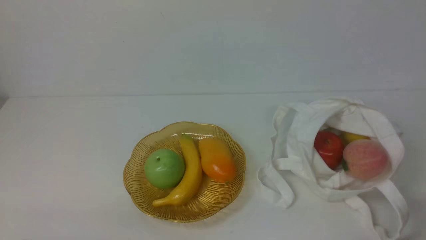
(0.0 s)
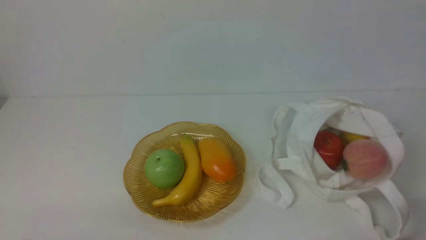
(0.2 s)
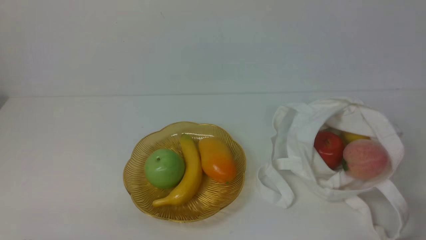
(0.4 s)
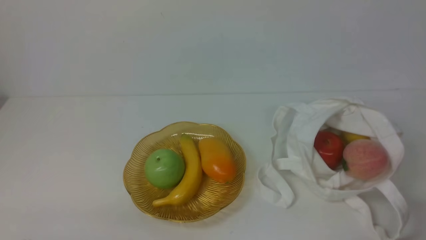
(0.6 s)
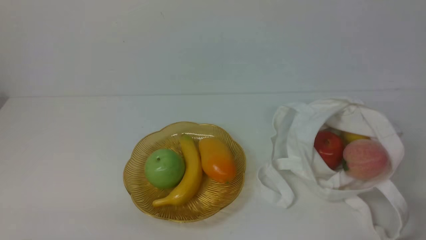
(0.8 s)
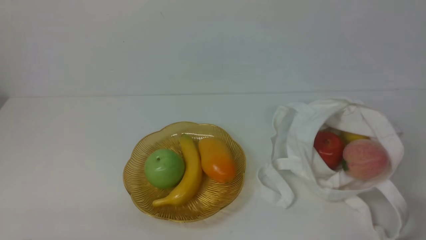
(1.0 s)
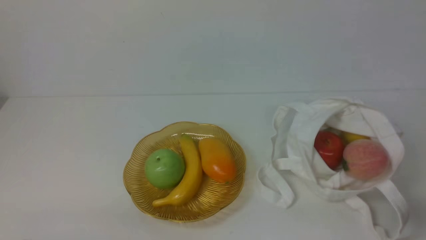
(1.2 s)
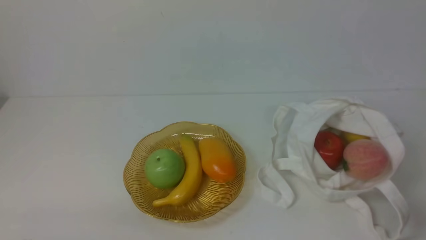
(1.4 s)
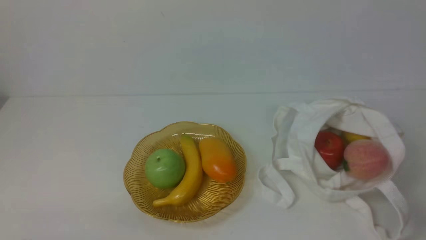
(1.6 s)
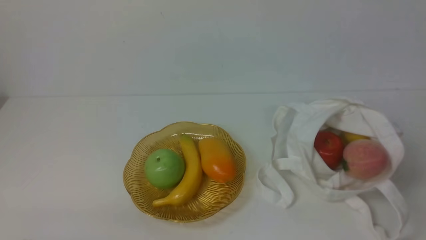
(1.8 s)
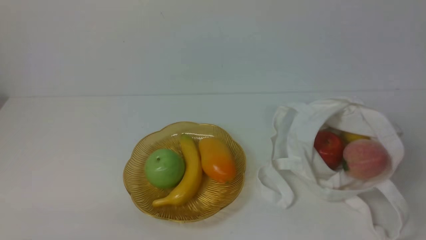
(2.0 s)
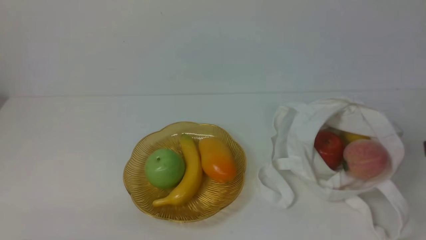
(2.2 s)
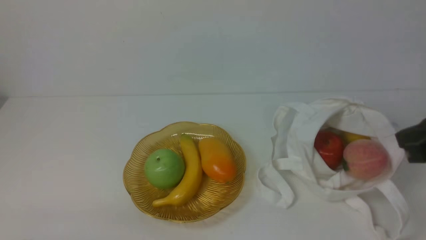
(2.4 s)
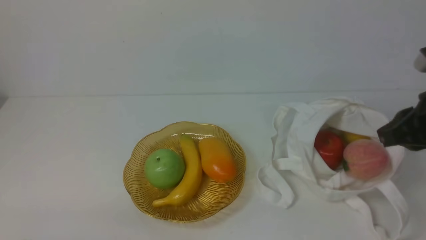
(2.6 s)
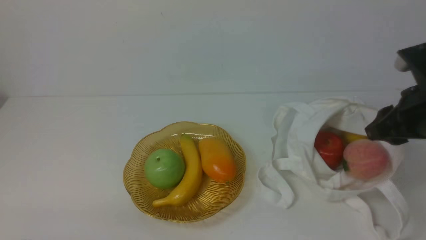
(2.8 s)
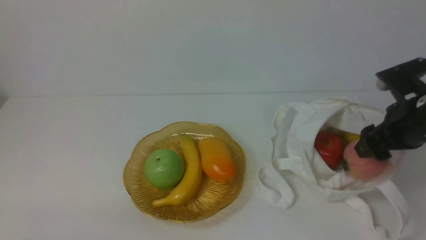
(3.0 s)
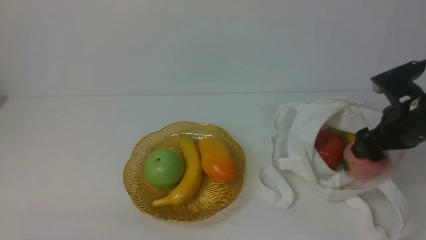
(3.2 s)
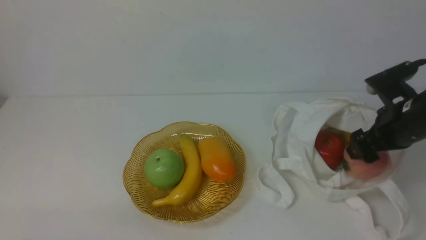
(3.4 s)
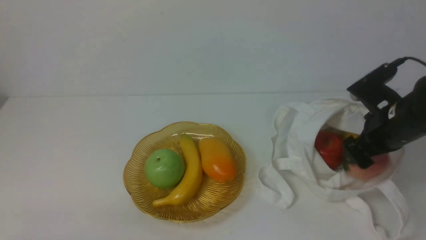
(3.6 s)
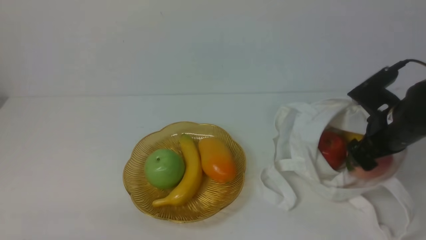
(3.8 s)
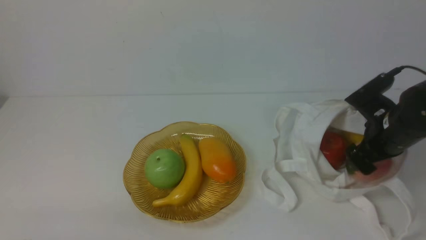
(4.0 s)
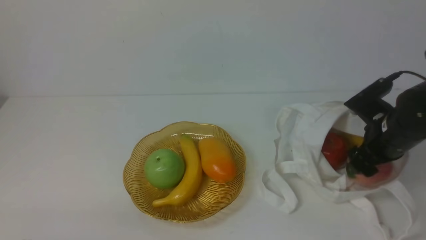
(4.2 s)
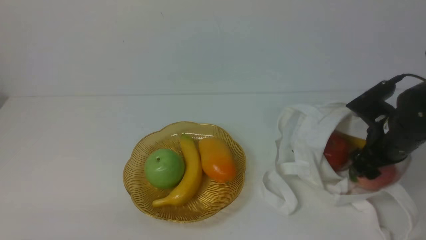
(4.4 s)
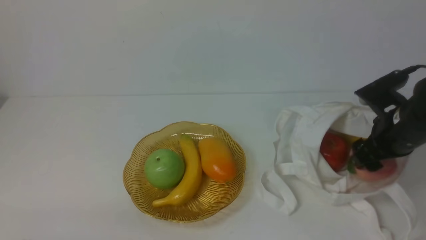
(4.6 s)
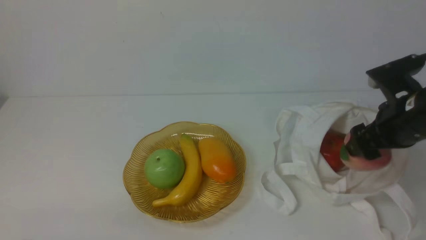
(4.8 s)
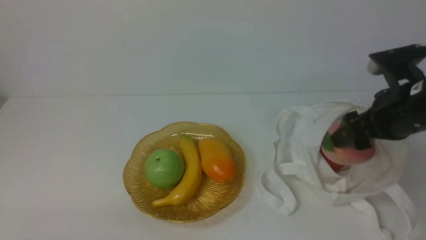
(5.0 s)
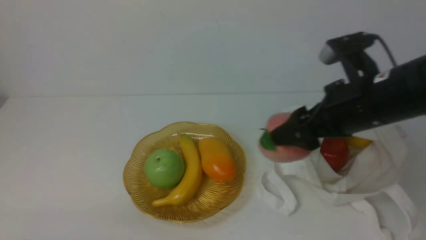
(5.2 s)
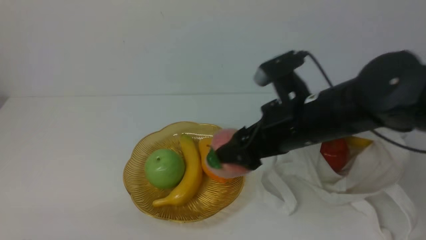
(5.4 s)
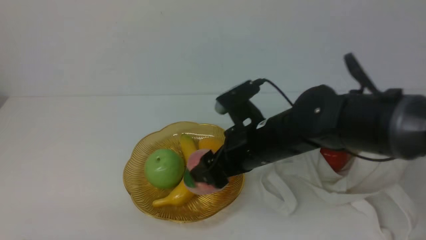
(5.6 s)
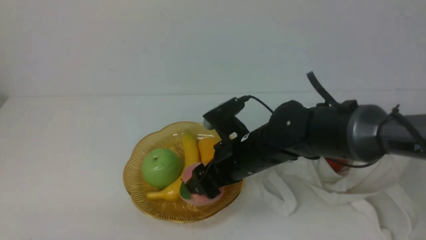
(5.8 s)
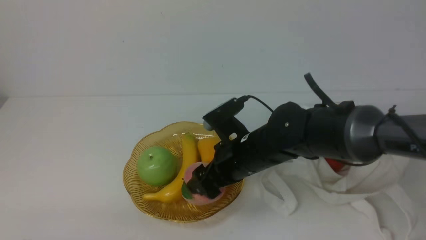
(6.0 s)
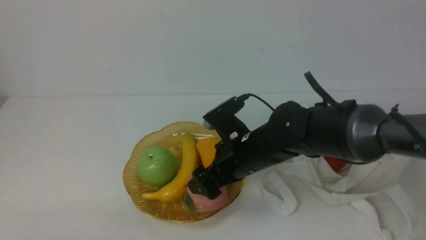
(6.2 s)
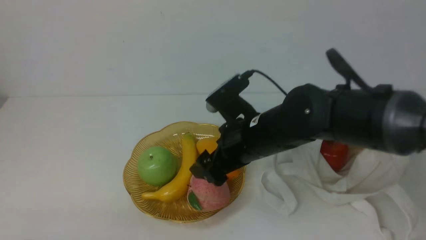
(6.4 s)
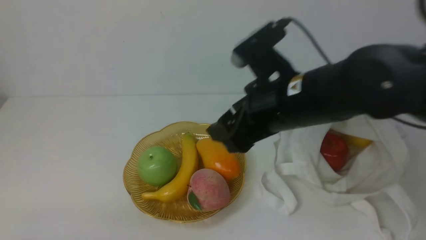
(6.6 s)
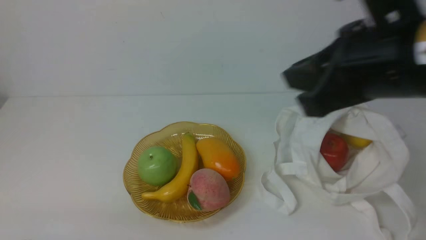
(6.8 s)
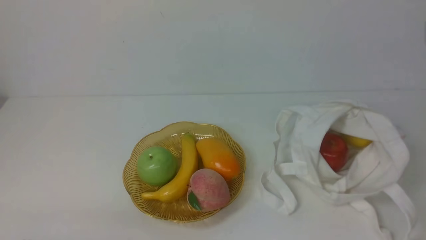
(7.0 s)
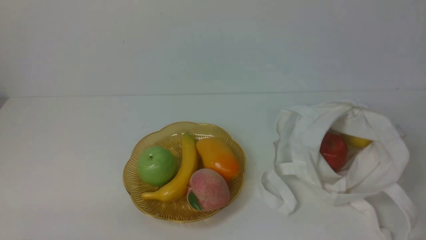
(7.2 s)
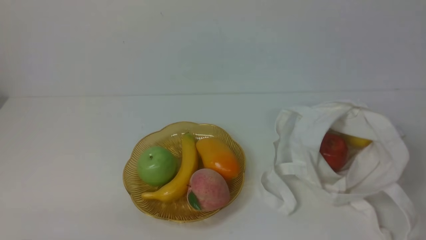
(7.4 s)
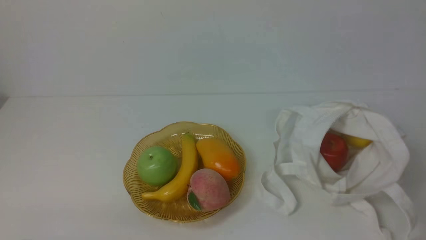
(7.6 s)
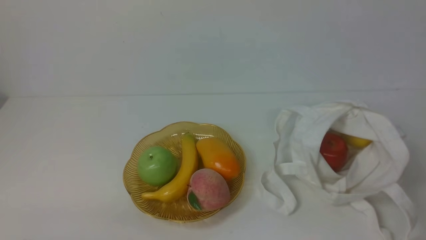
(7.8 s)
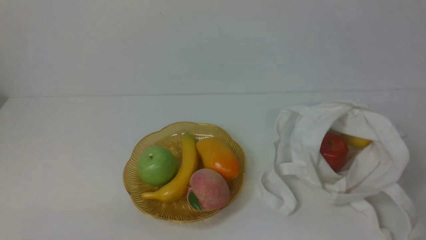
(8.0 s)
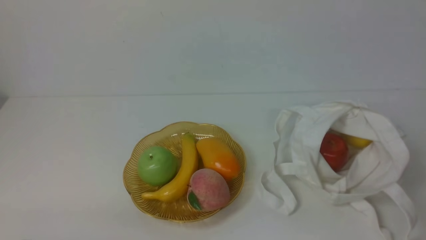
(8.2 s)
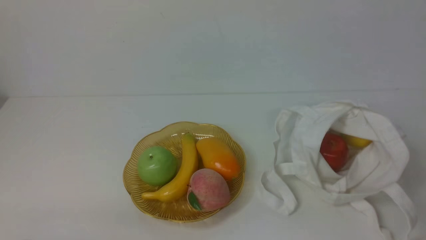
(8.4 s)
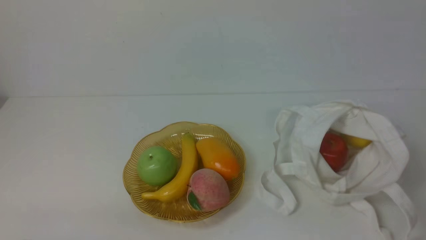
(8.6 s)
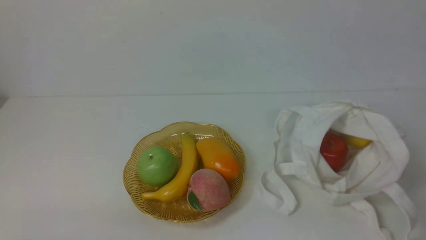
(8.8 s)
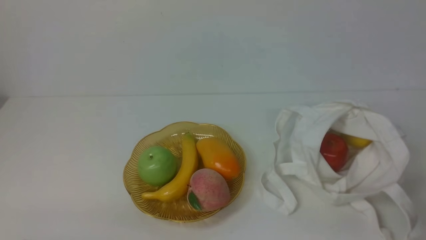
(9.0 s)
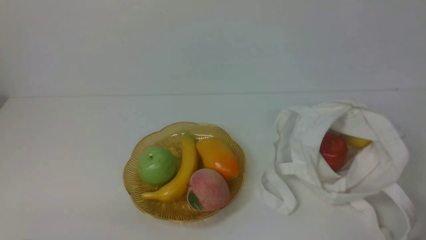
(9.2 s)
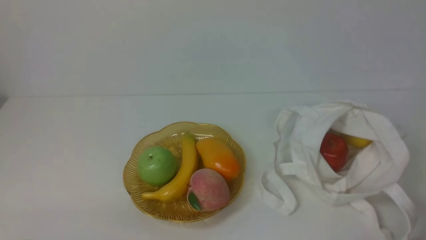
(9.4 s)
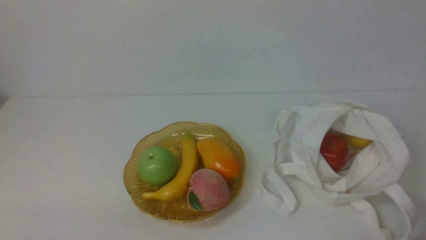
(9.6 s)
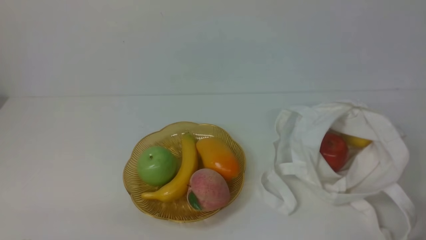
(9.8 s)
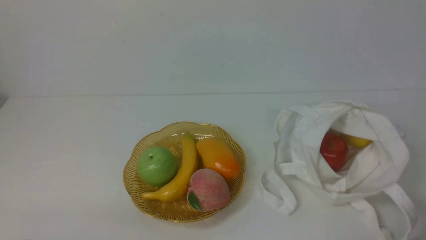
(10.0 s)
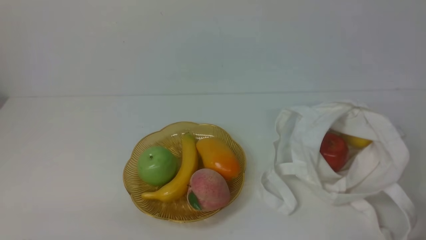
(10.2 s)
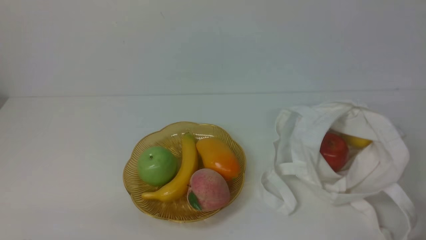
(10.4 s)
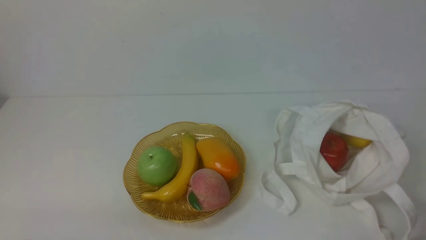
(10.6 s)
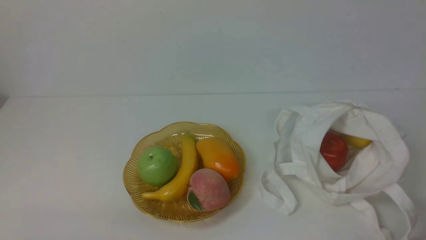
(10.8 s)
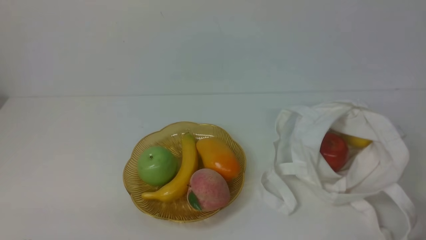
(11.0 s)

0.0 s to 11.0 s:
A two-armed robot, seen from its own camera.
Step, 0.0 to 4.8 s: use the right arm to grab a peach from the bag.
Step, 5.0 to 6.2 s: use the right arm to put the peach into the empty plate on the left.
1.6 to 3.2 s: The right gripper is displaced forward by about 25 cm, and opens its fingers.
3.2 to 4.8 s: The grippers make only small movements.
4.8 to 6.2 s: The right gripper heads to the left, covering roughly 20 cm.
6.2 to 7.8 s: The right gripper goes some 35 cm backward and to the right, and closes up.
9.4 to 11.0 s: Neither gripper changes place.

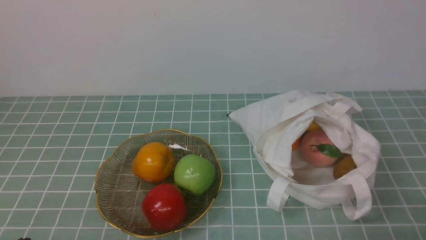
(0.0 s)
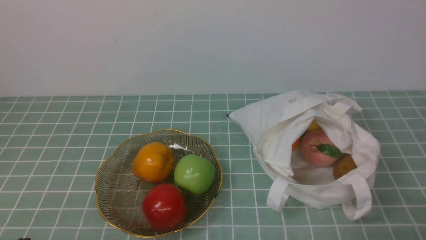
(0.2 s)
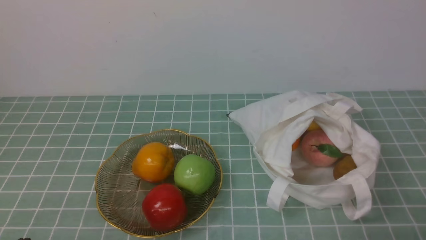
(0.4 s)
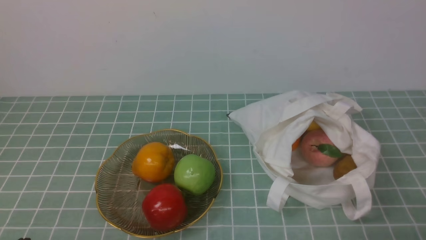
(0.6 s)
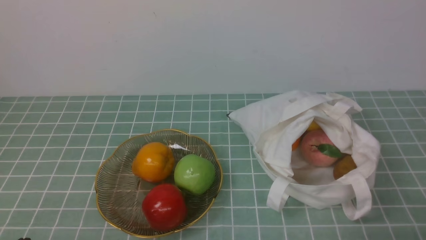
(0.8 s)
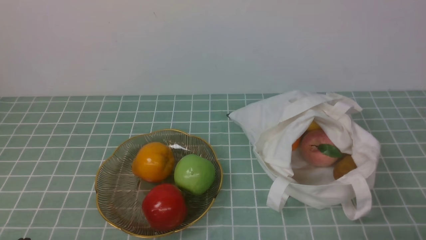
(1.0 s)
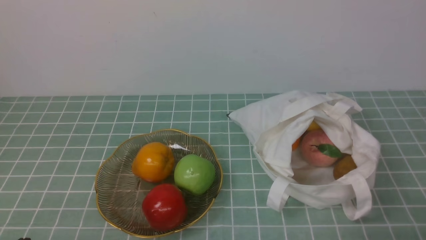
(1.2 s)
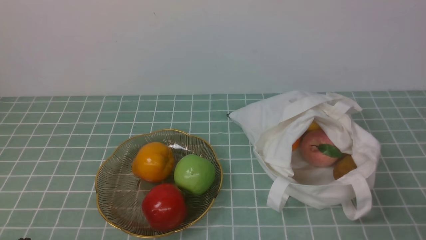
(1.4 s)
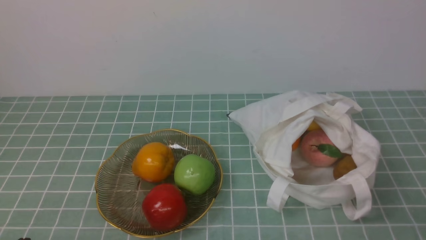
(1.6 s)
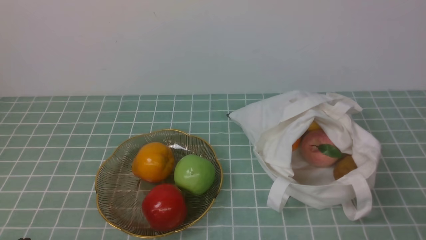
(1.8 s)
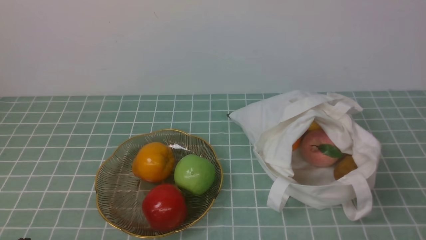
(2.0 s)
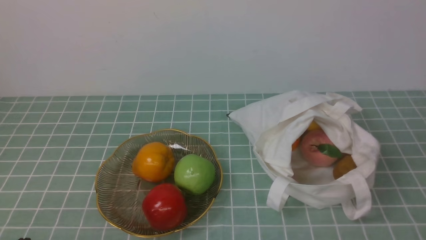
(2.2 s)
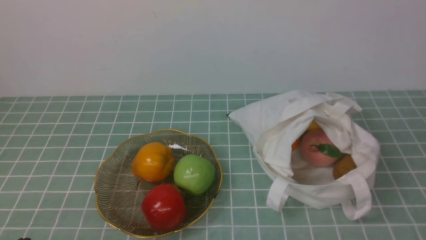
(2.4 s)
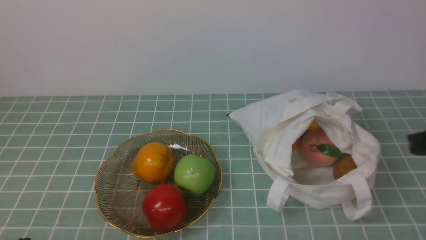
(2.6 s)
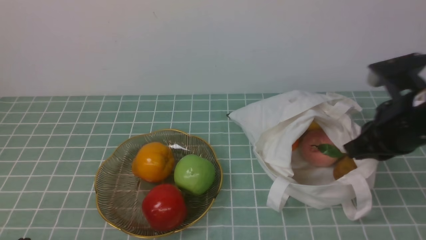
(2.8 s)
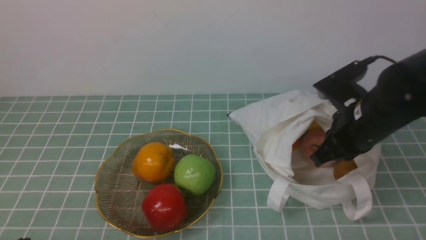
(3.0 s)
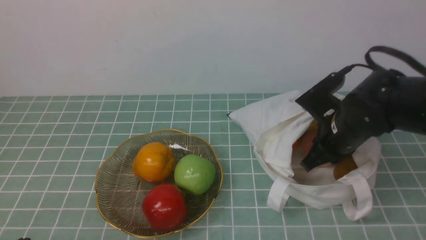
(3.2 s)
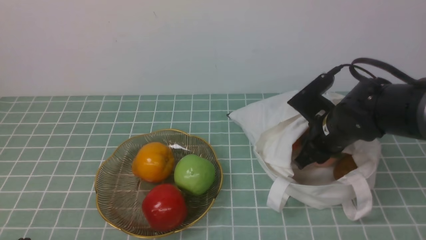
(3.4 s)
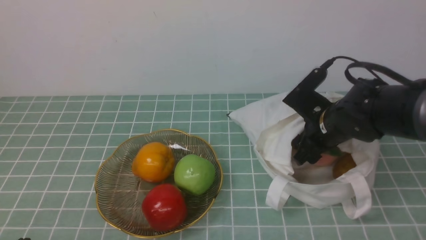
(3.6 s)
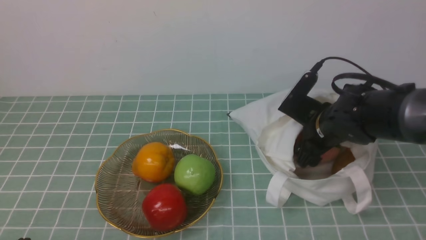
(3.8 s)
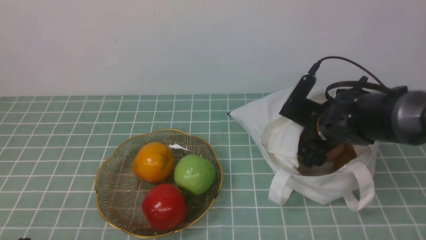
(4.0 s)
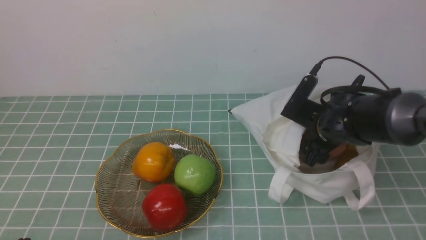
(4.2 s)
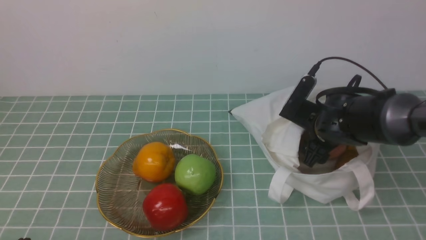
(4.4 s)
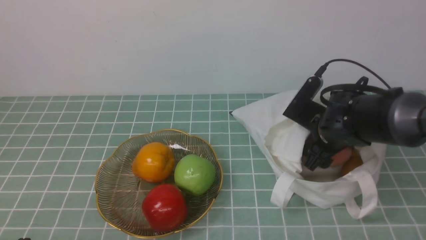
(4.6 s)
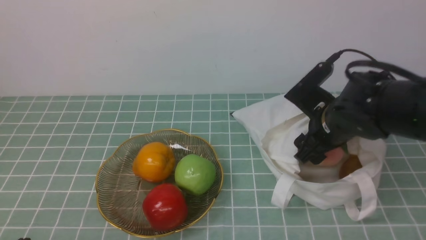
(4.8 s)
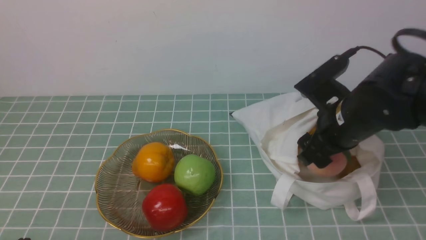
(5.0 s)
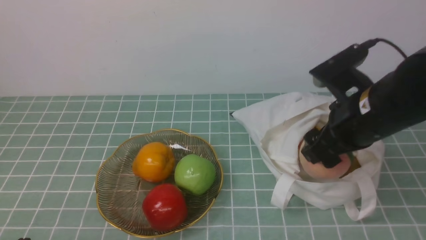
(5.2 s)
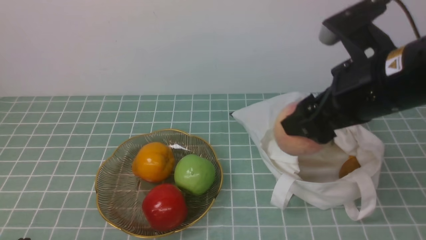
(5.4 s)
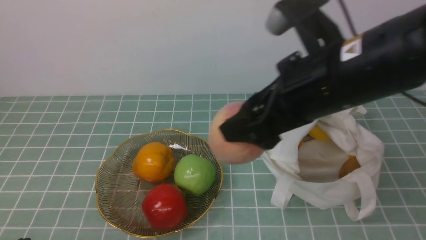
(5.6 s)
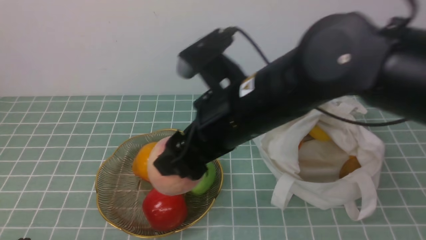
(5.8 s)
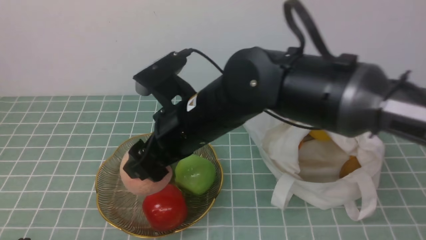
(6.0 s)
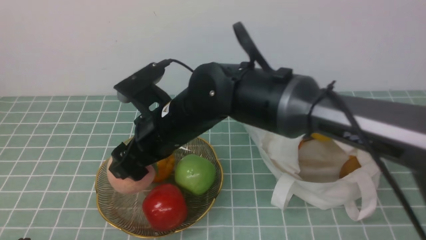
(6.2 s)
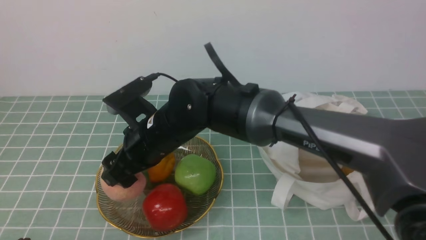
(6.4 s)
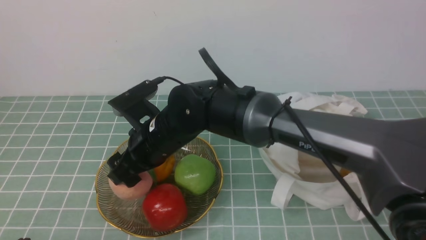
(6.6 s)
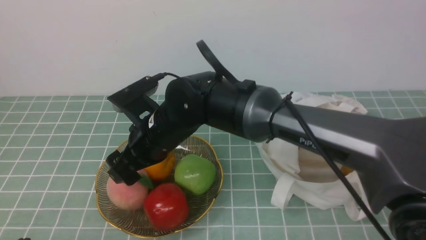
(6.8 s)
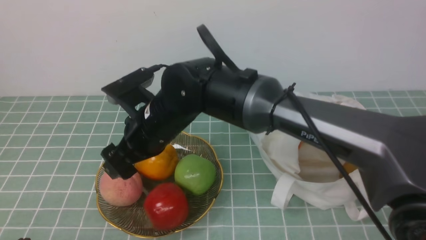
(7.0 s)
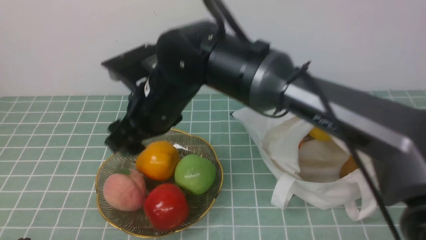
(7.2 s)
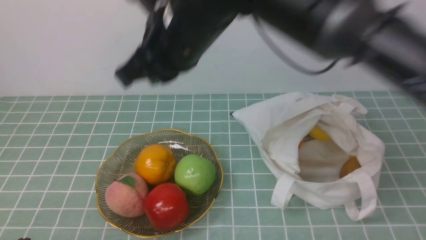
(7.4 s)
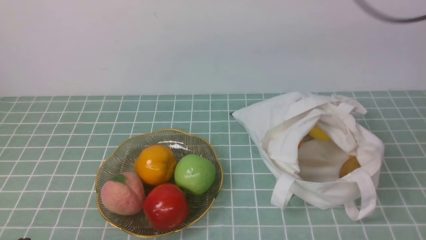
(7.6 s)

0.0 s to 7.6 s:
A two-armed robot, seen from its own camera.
Step, 0.0 to 4.8 s: use the right arm to grab a peach from the bag.
Step, 5.0 to 6.8 s: use the right arm to put the peach into the empty plate on the left.
1.6 to 3.0 s: The right gripper shifts some 25 cm forward and to the left.
3.0 to 4.6 s: The right gripper moves downward, some 5 cm, and opens its fingers.
4.6 to 6.0 s: The right gripper shifts approximately 25 cm to the left and upward.
6.0 to 7.6 s: The right gripper moves upward, roughly 20 cm, and closes up.
